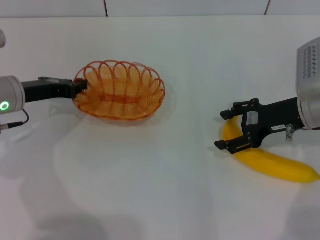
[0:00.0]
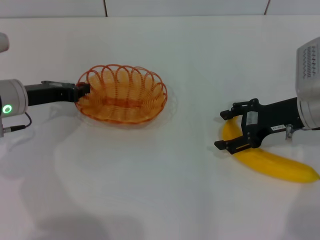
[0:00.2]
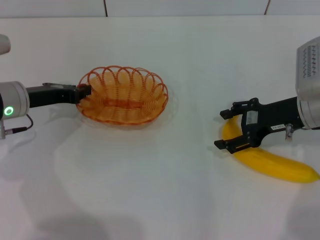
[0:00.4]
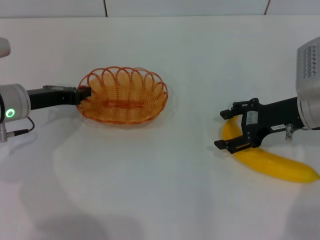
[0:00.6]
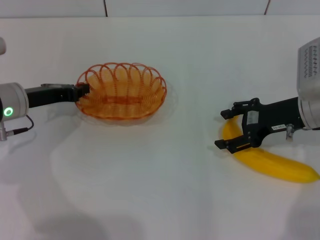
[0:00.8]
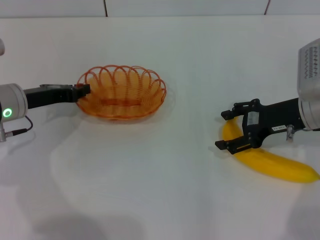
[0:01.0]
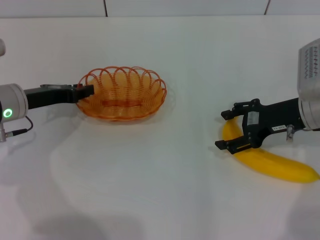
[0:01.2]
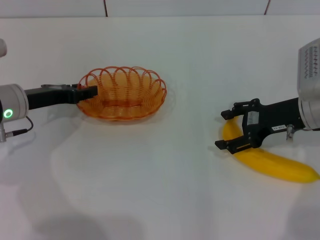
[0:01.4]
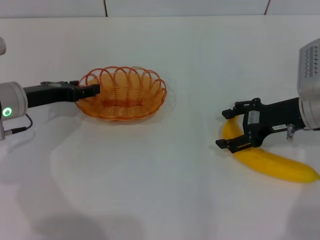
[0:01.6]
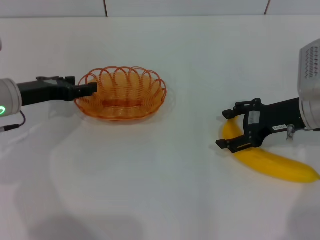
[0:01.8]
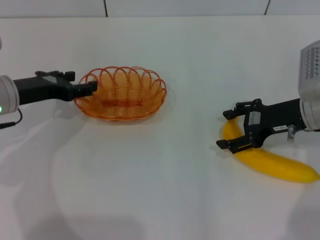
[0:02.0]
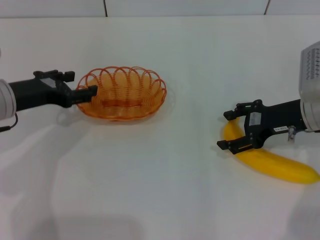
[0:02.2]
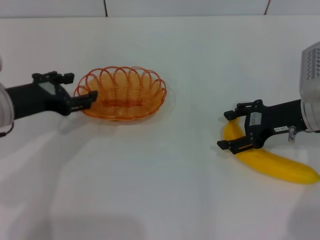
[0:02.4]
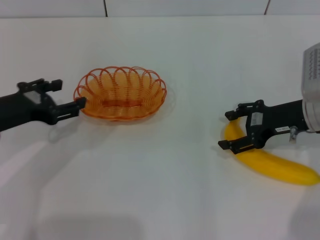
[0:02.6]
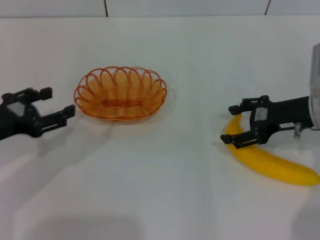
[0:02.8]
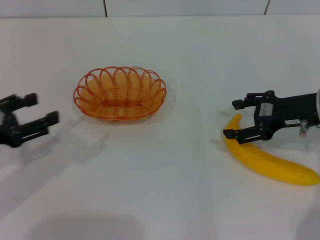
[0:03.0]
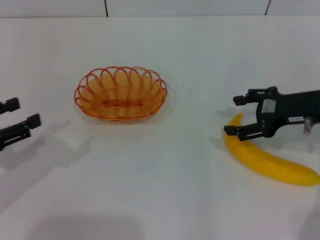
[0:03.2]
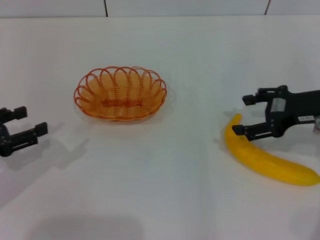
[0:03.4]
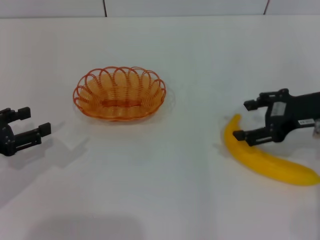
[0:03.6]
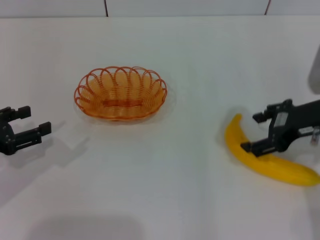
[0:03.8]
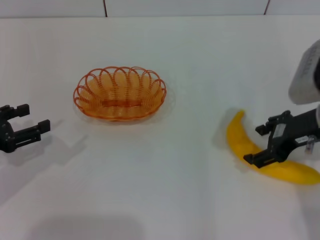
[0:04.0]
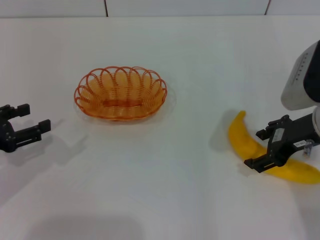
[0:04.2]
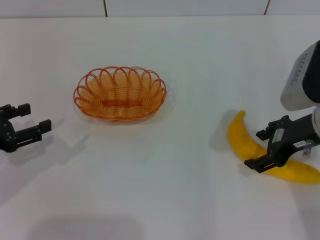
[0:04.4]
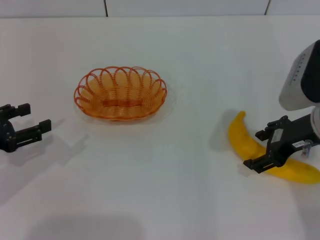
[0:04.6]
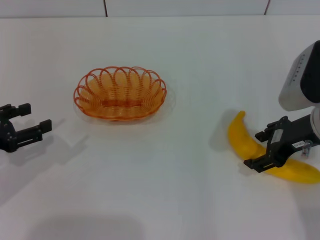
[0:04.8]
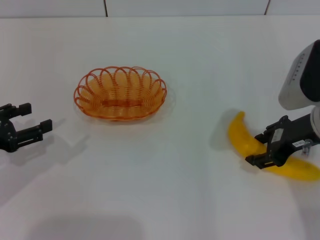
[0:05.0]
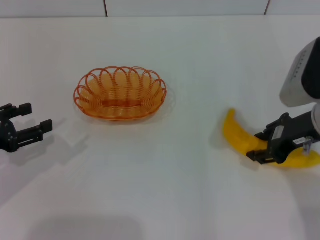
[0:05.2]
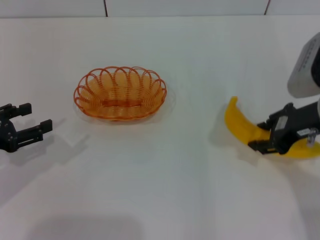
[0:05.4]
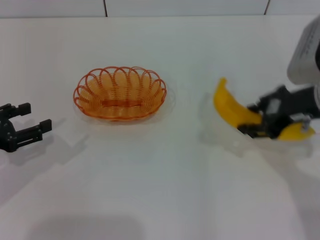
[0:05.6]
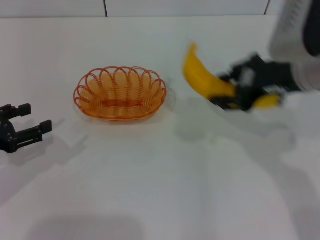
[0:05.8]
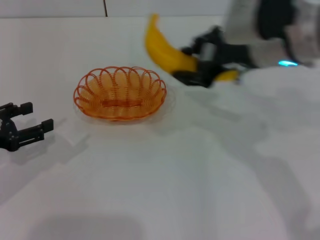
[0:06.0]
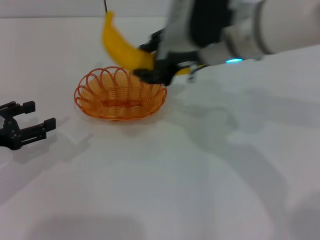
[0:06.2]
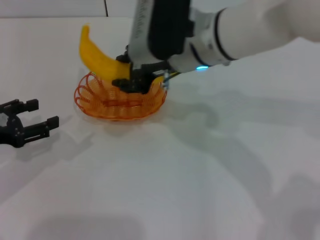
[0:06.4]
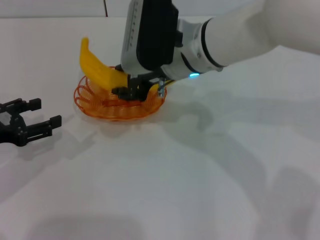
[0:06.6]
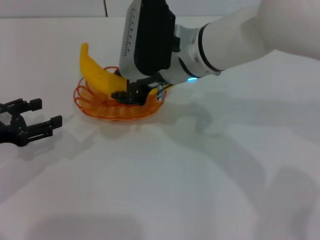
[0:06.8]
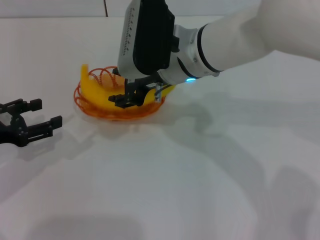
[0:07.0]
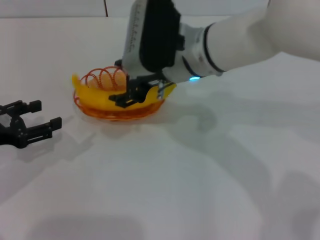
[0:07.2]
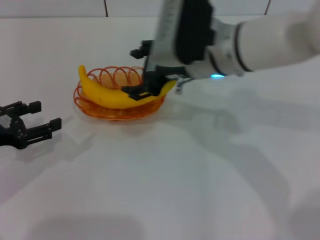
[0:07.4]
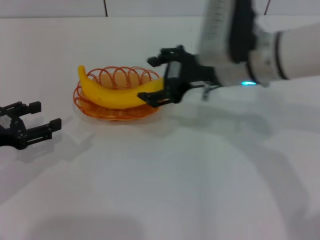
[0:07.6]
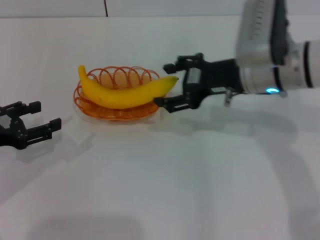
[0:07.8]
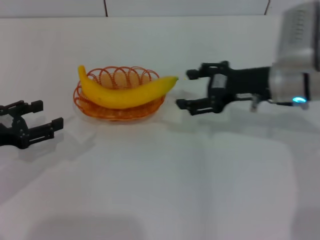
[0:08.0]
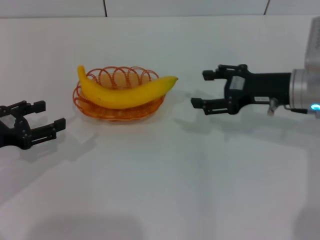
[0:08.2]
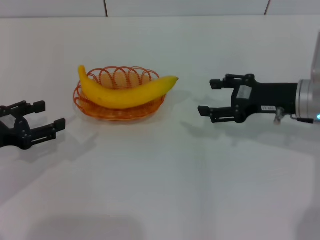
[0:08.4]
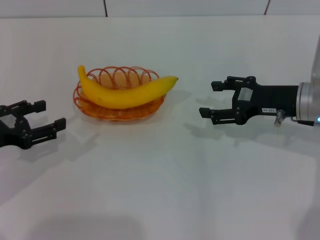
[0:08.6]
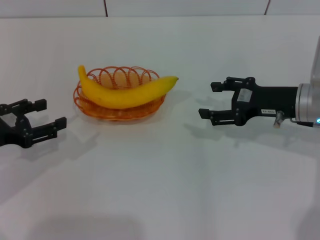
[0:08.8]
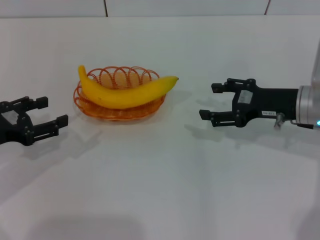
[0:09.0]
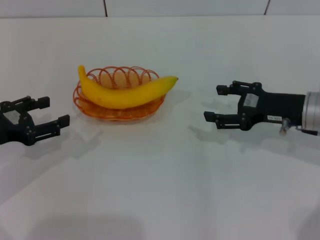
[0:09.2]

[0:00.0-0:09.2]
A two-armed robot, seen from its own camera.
Step, 0:00.0 to 0:02.2: Place the basket in the center of view with the left gripper.
Step, 0:02.4 to 0:05.6: Pick up the banana with the right gripper.
Step, 0:05.8 to 0:07.4: Place the banana into the basket with the right gripper.
0:00.0 to 0:01.6: The left gripper opens its fingers.
0:01.6 to 0:03.0: The left gripper travels backward and to the left by about 15 cm, and opens its fingers.
0:03.0 to 0:04.6: The right gripper moves approximately 5 cm.
0:04.6 to 0:06.2: The right gripper goes approximately 15 cm to the left, forward and upward, and closes up.
0:06.2 to 0:07.6: The right gripper shifts by about 5 cm, and opens.
0:07.6 to 0:09.2: The right gripper travels to the right and downward by about 15 cm.
